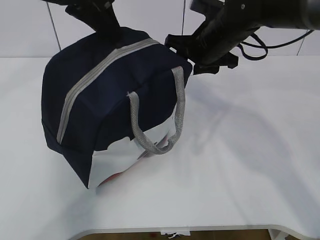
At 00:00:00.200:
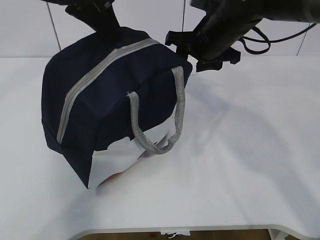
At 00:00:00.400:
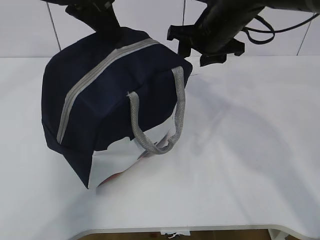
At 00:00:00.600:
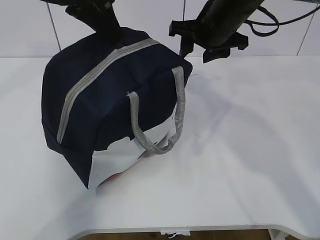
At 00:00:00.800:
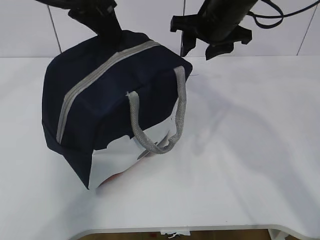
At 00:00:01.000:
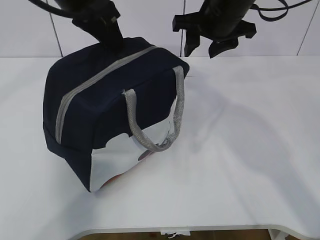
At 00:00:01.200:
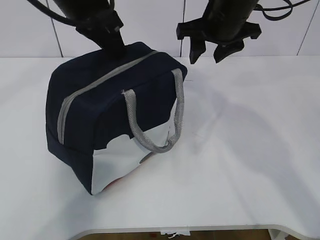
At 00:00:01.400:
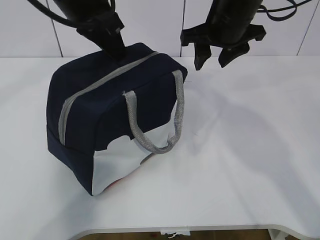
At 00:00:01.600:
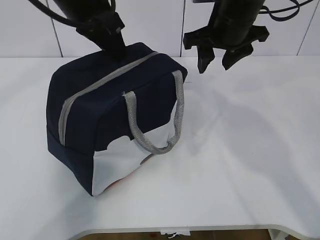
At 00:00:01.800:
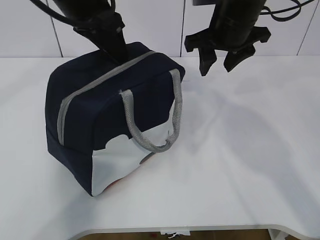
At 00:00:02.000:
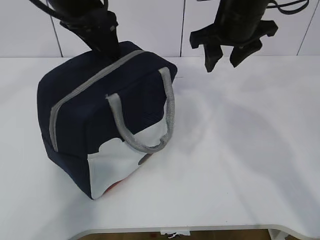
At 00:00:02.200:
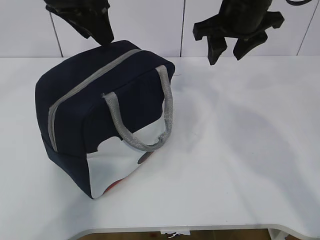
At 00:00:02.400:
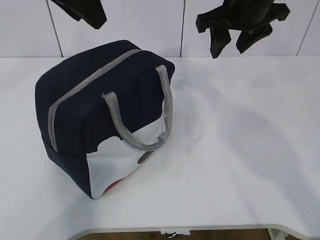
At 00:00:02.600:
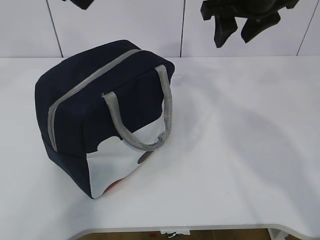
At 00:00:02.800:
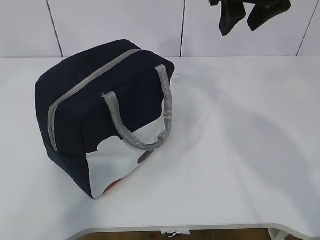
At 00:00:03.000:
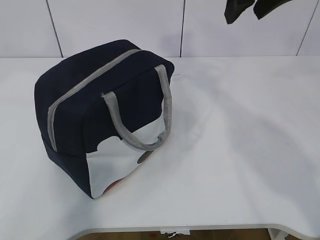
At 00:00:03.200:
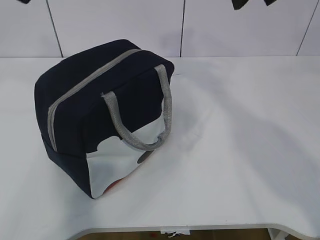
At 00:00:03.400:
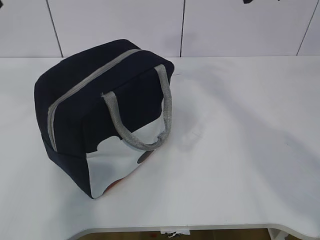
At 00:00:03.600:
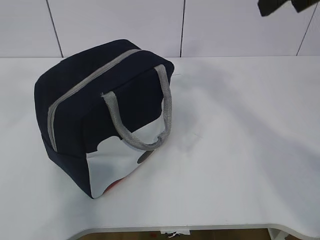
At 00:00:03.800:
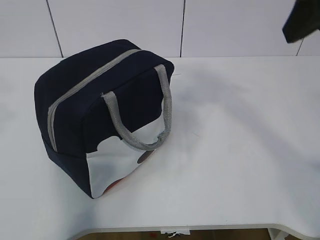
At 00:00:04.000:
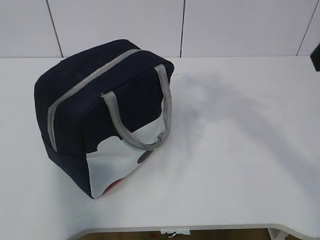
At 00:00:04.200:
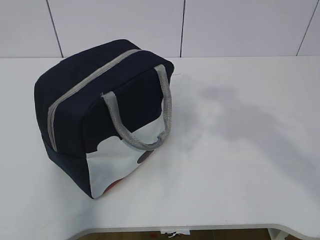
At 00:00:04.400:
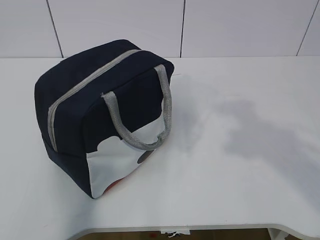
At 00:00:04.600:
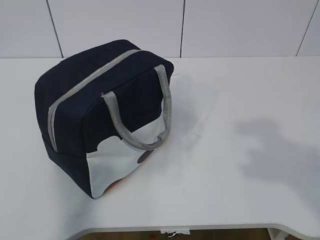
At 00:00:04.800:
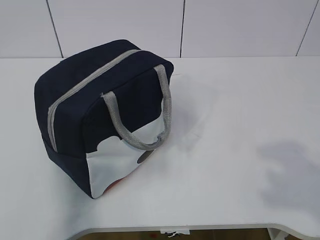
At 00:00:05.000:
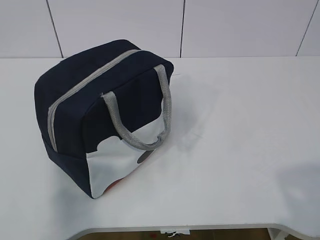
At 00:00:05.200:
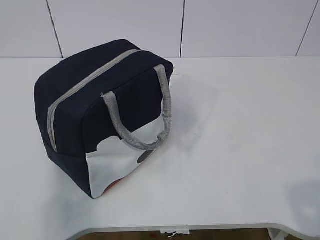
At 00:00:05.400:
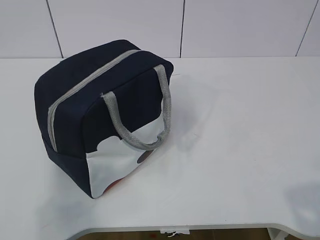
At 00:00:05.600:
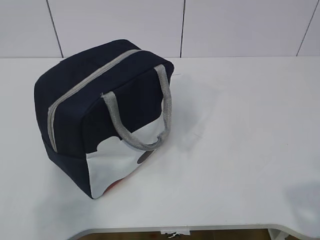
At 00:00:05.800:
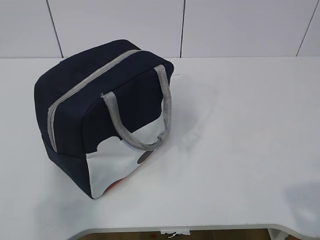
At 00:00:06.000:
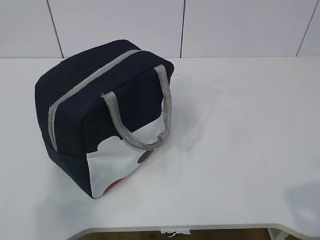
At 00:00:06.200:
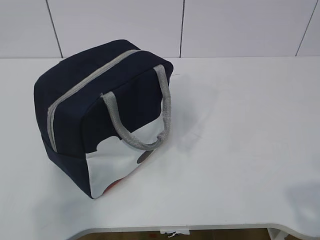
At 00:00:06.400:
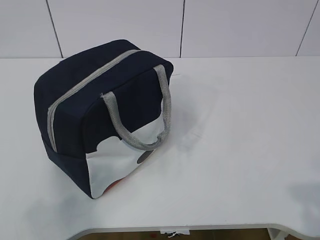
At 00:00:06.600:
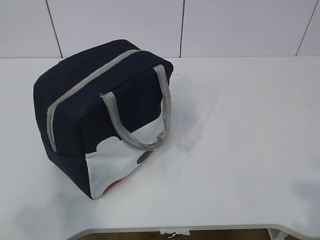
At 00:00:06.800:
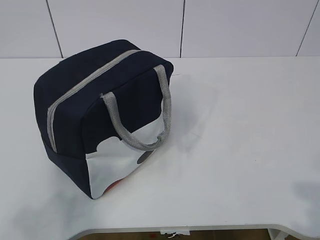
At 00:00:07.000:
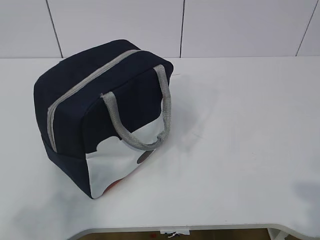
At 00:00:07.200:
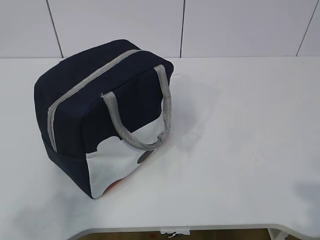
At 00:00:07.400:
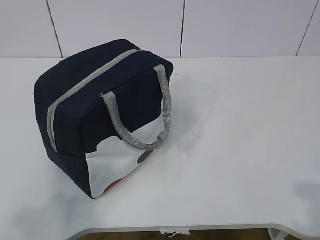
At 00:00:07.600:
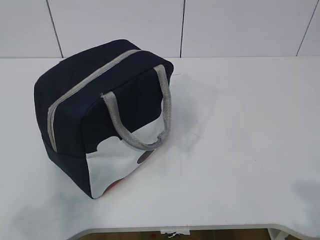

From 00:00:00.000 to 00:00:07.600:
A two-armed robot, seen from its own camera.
From 00:00:00.000 to 00:00:01.600: The right gripper heads upward, covering about 5 cm.
From 00:00:01.600 to 00:00:03.000: The left gripper is displaced upward, backward and to the left by about 15 cm, and opens. Meanwhile the right gripper shifts about 10 cm upward and backward.
From 00:00:03.000 to 00:00:04.600: The right gripper goes some 30 cm backward.
